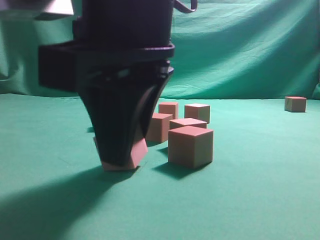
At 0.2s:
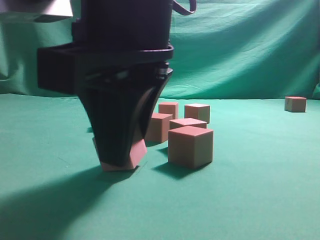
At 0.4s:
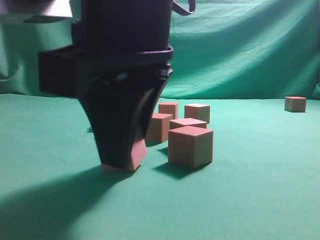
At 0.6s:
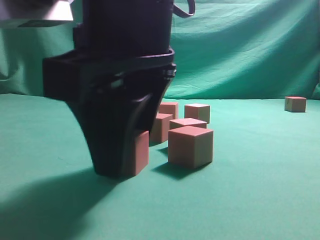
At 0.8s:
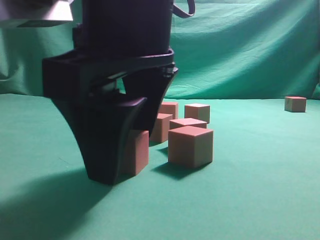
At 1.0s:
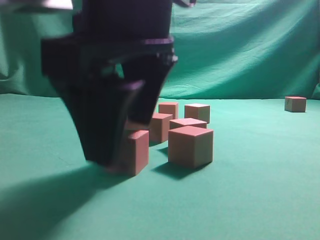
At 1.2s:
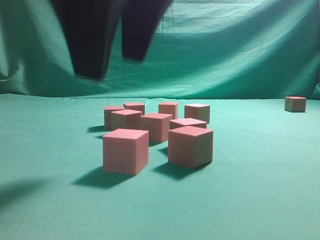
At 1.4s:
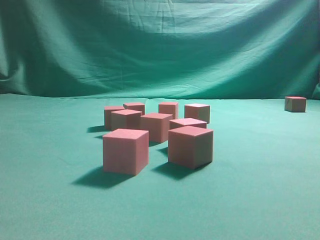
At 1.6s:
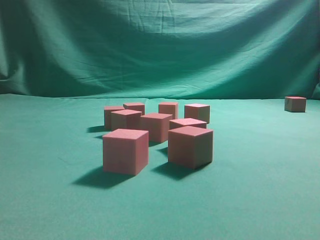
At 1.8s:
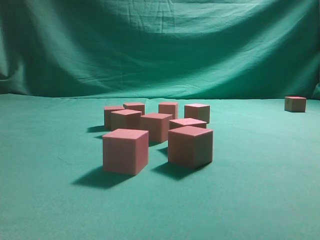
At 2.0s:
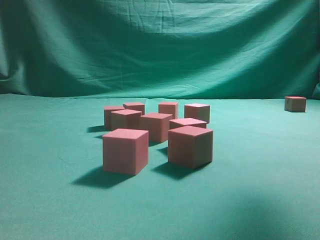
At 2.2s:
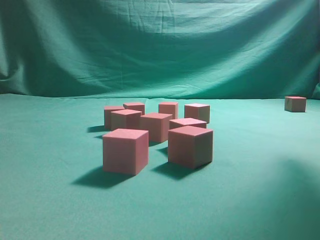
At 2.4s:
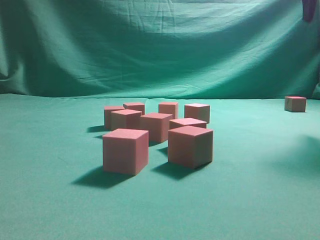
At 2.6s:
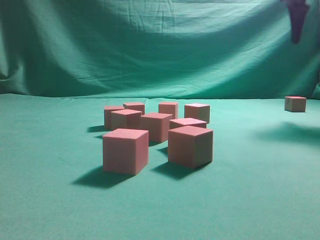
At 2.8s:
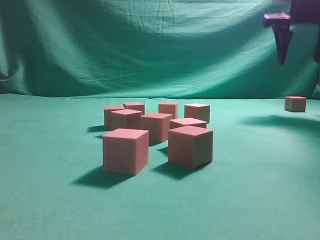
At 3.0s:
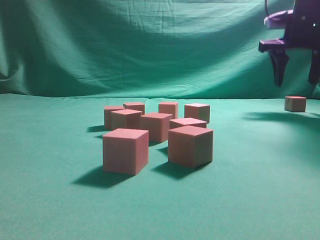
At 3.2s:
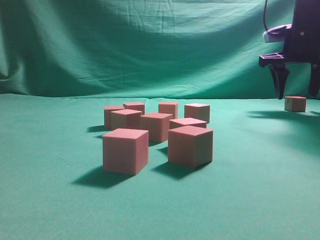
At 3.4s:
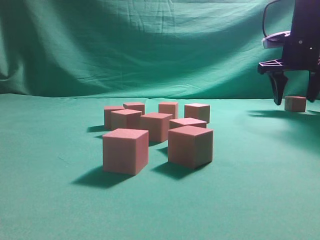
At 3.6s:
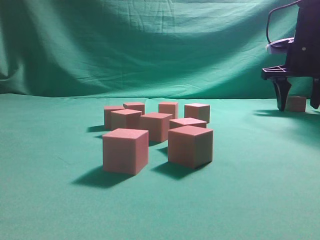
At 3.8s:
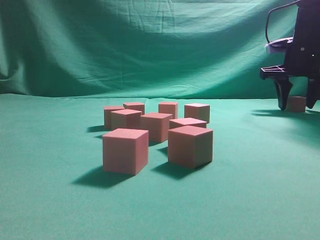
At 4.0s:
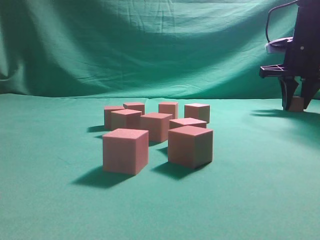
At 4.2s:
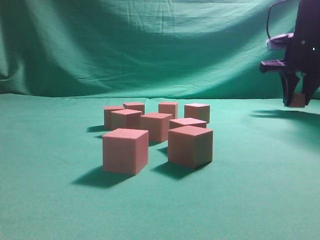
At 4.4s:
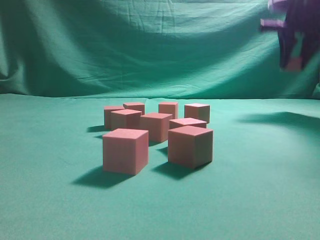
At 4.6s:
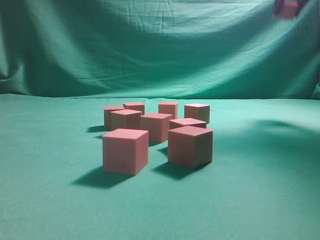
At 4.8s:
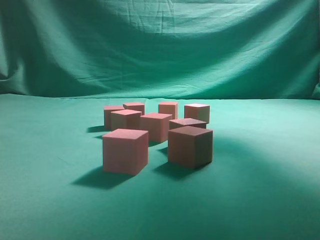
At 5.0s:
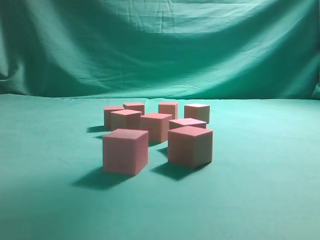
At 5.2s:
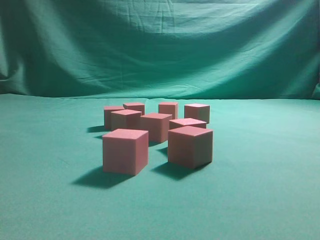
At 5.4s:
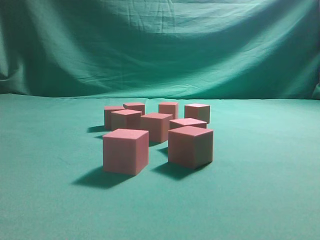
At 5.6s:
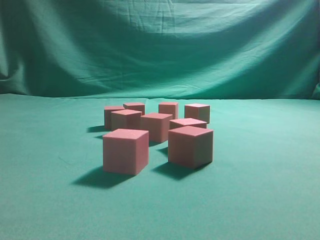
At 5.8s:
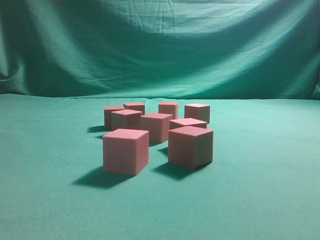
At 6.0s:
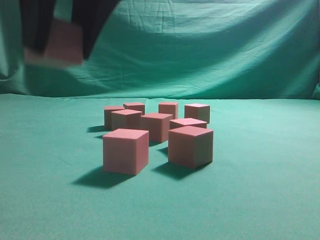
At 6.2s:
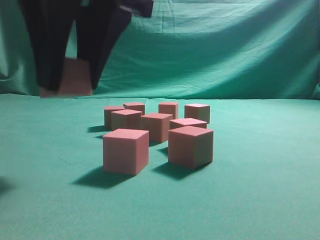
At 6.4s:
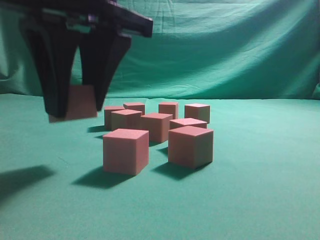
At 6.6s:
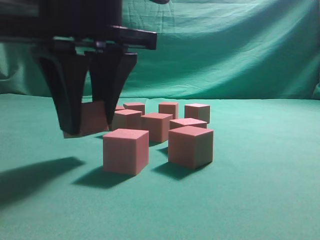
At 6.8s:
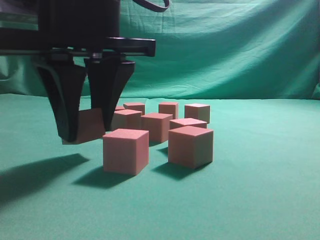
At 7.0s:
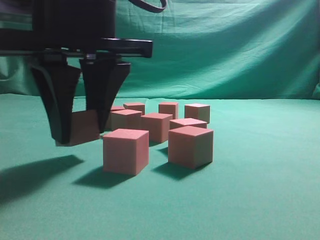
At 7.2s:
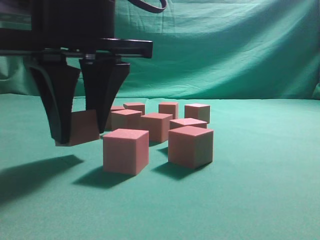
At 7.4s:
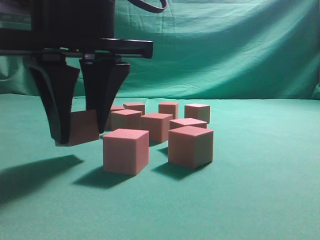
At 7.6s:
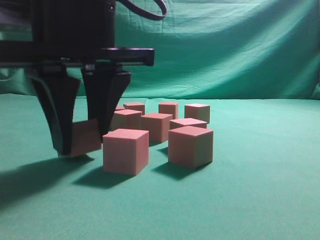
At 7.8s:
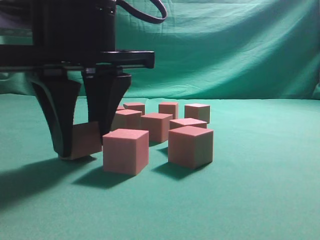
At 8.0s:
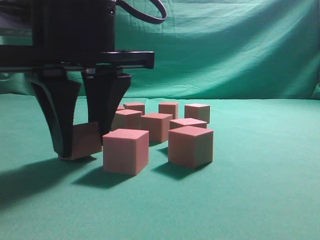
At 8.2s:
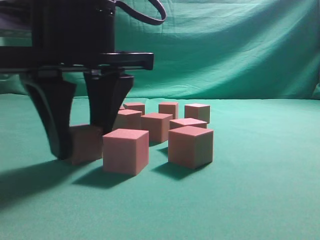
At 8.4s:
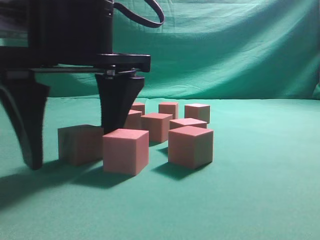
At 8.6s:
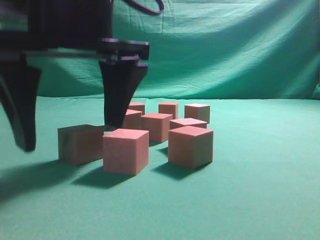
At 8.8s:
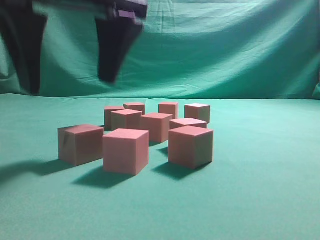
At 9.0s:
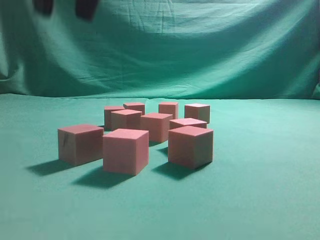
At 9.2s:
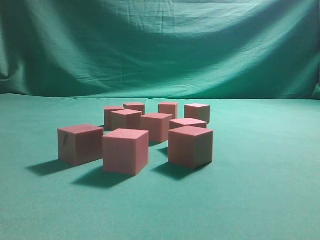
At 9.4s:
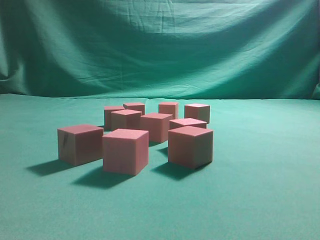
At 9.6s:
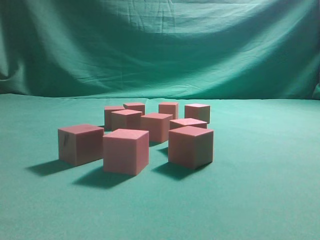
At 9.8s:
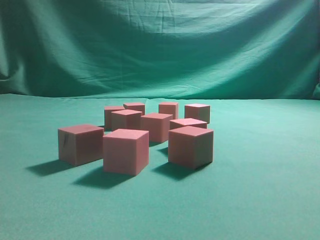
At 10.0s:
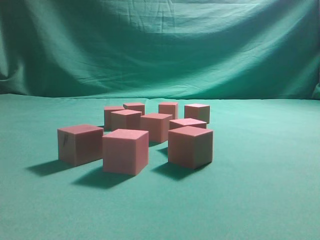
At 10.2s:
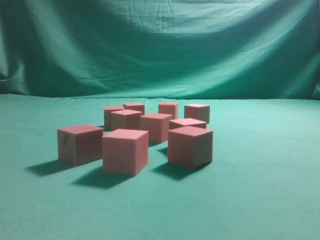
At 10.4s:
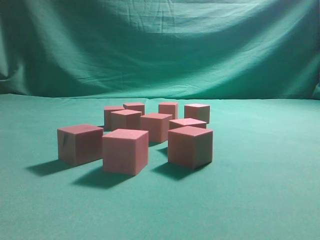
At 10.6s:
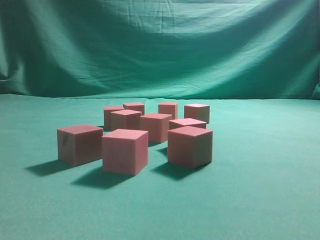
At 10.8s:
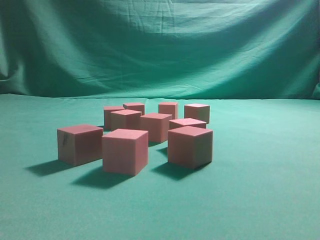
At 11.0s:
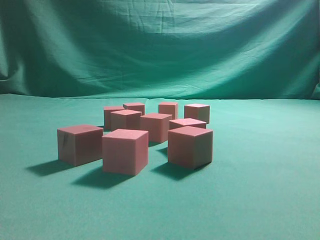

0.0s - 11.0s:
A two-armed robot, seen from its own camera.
Task of the whole recording: pick up the multiple cubes in two columns one by one and place them in another position on the table.
Step, 1.4s - 4.4s: Pick up the block on the table.
Step, 4.6s - 8.8s: Place the block at the correct position to assemble the letter S.
0.0s - 1.6s: The right gripper goes some 20 cm upward, and opens.
1.6s - 3.2s: The right gripper travels forward, to the right and downward by about 40 cm.
3.2s - 4.8s: The right gripper travels upward and backward by about 25 cm, and closes its fingers.
4.8s - 6.2s: The right gripper goes roughly 35 cm to the left, downward and backward.
6.2s - 7.8s: The right gripper travels downward by some 5 cm.
7.8s - 9.4s: The right gripper shifts roughly 25 cm upward, and closes up.

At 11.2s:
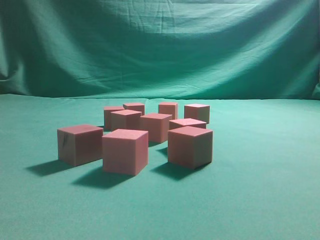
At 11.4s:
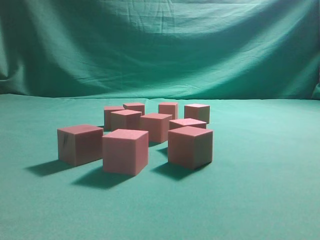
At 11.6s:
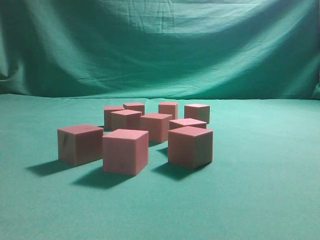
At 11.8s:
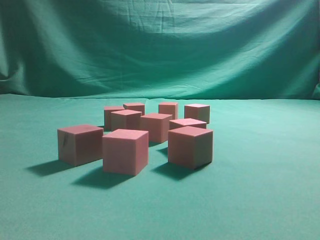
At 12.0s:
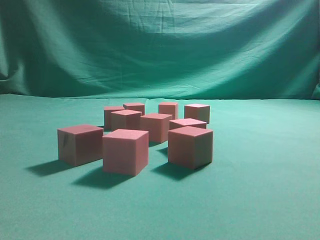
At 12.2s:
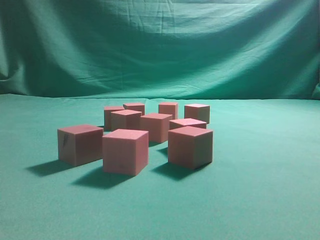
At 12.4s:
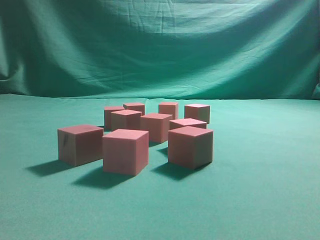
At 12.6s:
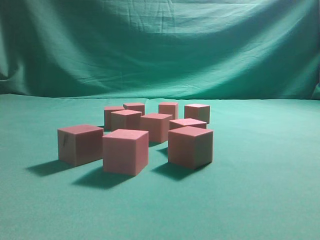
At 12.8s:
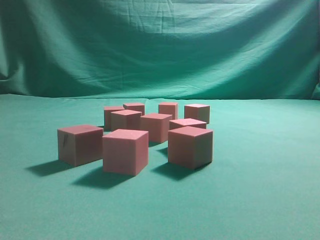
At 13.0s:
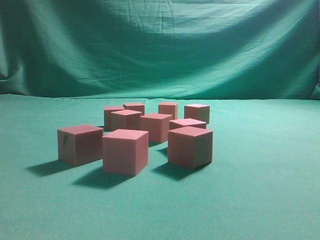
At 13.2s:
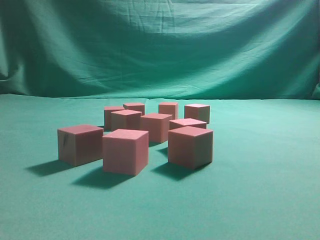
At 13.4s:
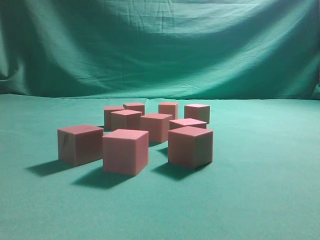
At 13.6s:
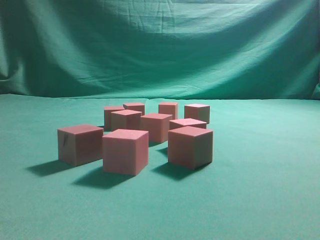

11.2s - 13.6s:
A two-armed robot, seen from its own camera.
Task of the whole recording: pick up the multiple cubes in two columns one by one and place them in another position on the table.
12.4s - 13.6s: Neither gripper changes place.
